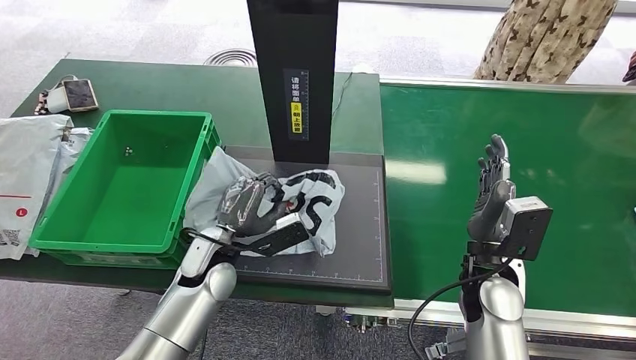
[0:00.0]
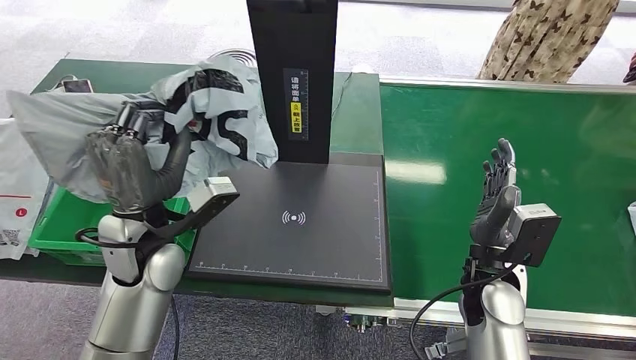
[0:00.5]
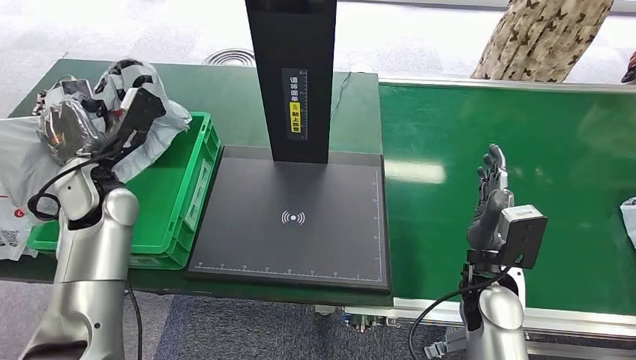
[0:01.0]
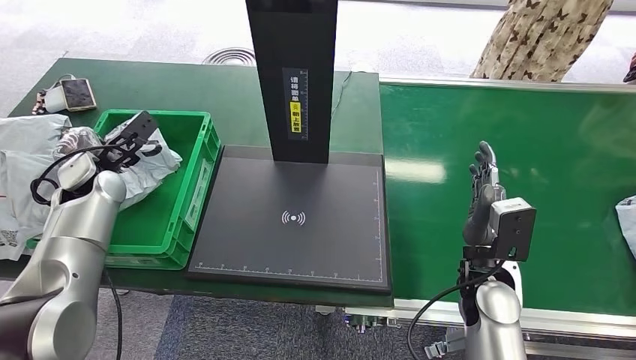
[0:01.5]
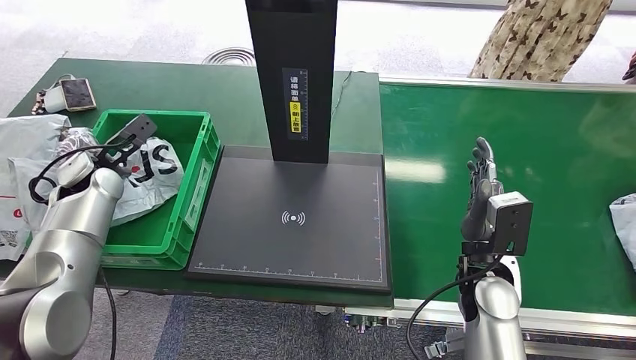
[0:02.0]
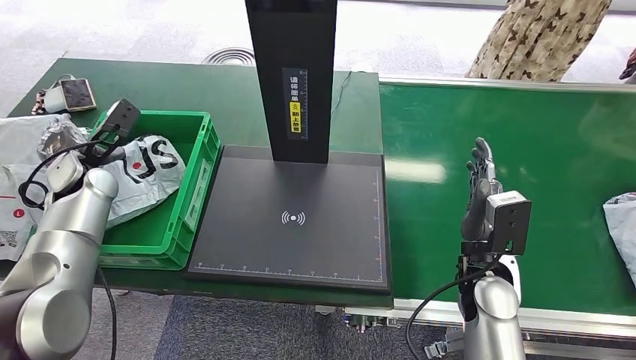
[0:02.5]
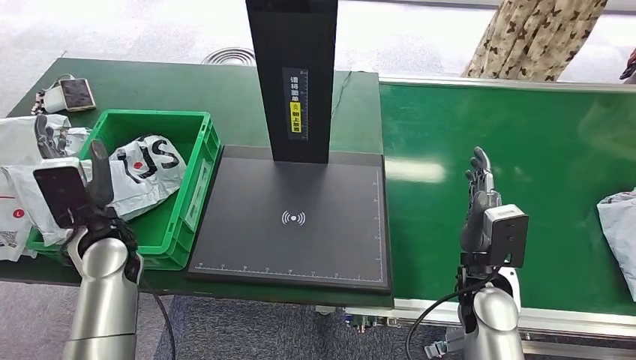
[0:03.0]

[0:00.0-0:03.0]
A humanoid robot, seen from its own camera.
Step, 0:01.0 to 0:02.5: Place the package into the parcel locker.
0:01.5 to 0:03.0: The left hand goes roughly 15 cm backward and to the right.
